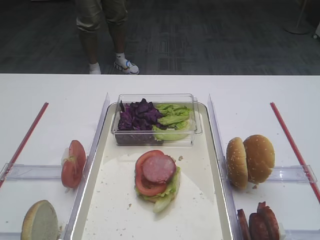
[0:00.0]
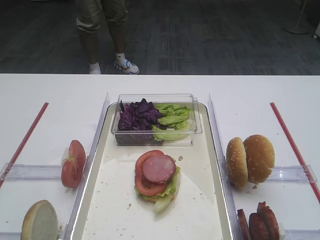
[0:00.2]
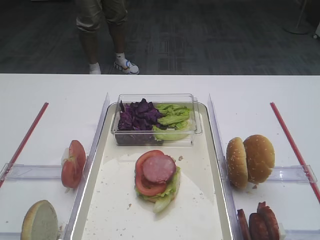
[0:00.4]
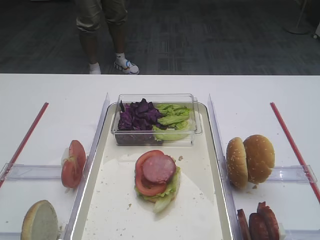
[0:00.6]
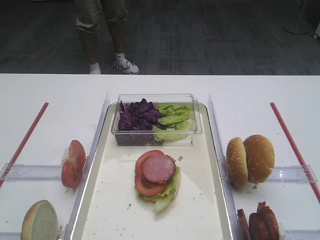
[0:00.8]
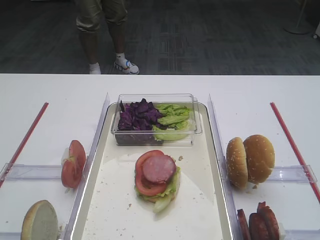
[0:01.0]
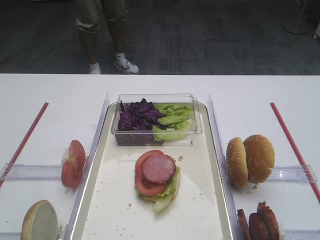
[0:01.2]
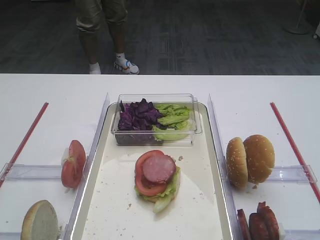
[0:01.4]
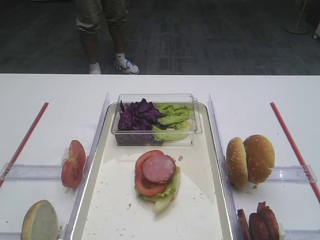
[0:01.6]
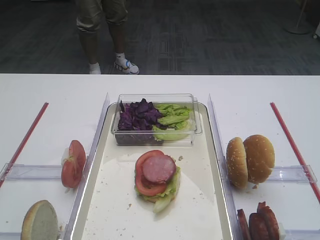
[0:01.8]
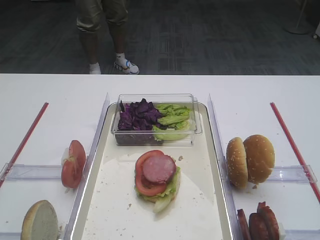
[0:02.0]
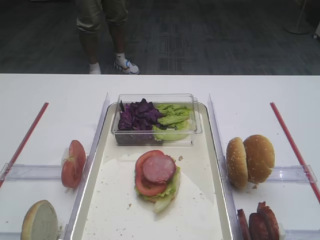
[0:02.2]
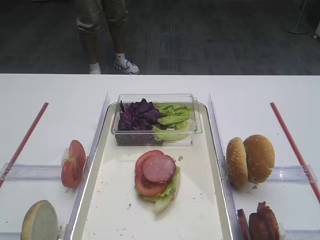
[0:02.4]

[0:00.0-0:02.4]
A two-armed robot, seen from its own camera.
0:00.0 to 0:02.4: Neither gripper changes place.

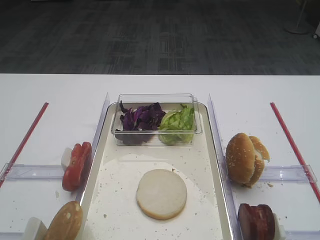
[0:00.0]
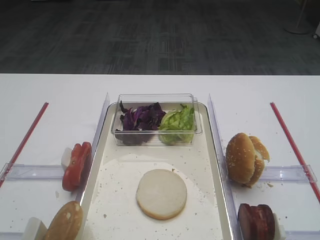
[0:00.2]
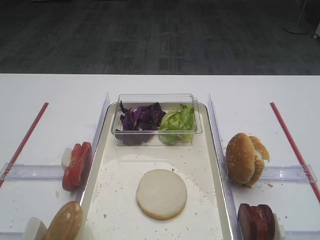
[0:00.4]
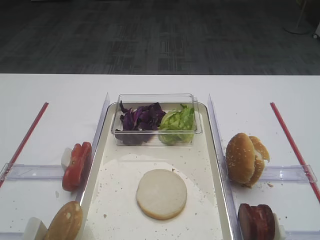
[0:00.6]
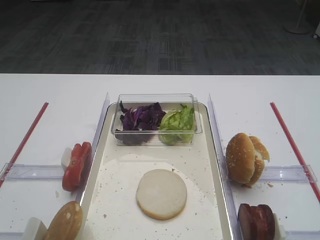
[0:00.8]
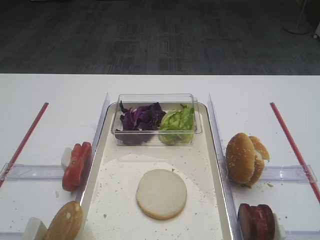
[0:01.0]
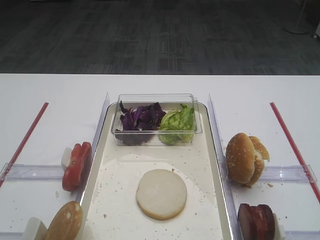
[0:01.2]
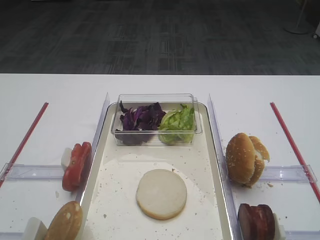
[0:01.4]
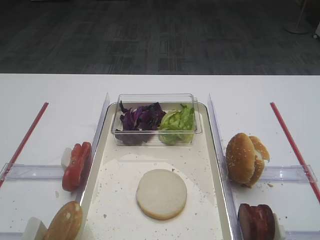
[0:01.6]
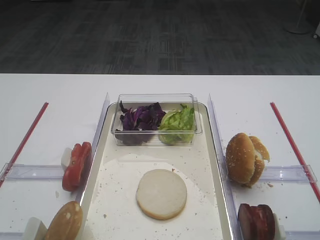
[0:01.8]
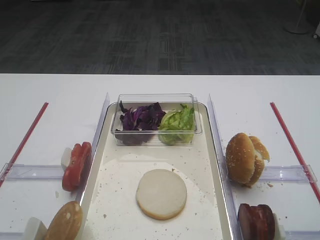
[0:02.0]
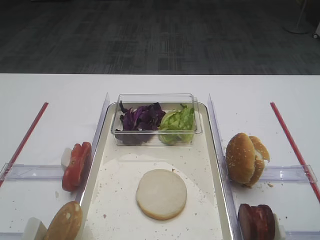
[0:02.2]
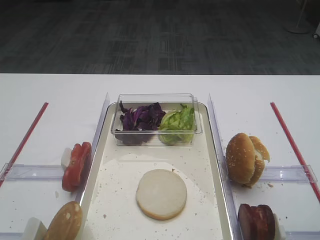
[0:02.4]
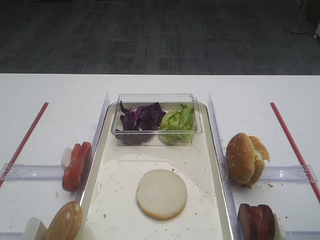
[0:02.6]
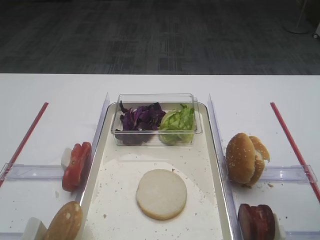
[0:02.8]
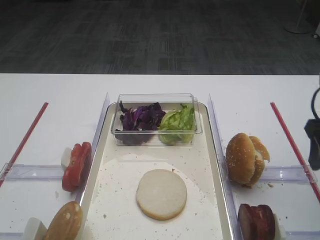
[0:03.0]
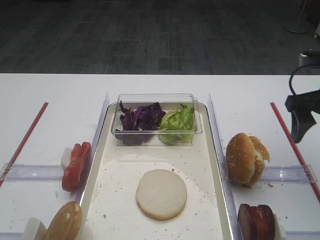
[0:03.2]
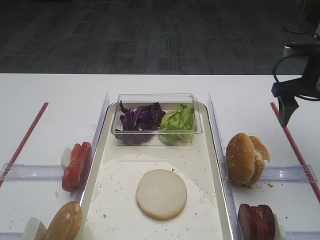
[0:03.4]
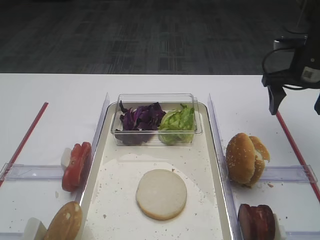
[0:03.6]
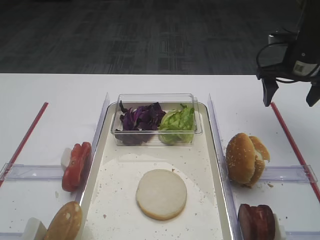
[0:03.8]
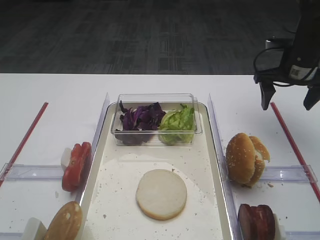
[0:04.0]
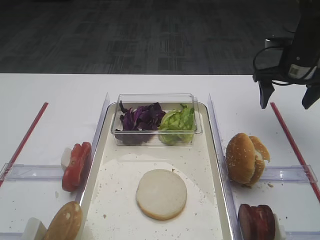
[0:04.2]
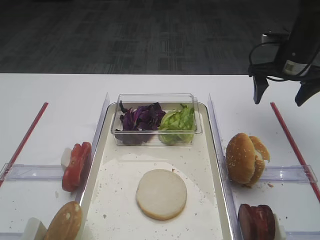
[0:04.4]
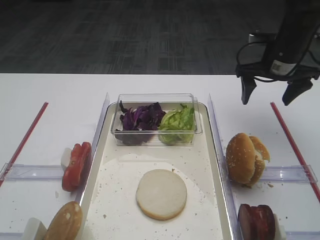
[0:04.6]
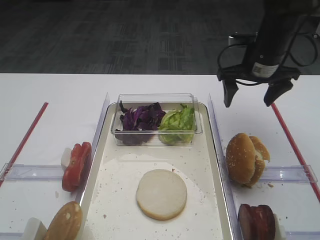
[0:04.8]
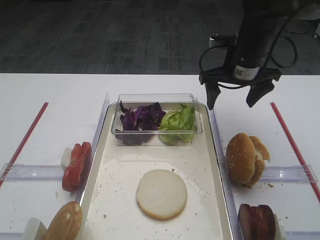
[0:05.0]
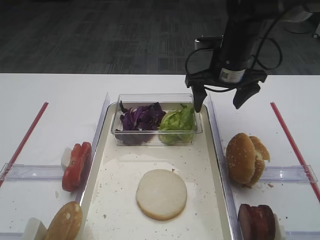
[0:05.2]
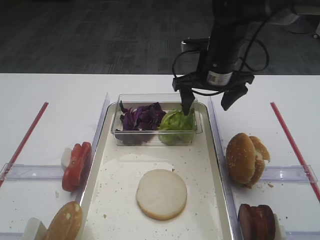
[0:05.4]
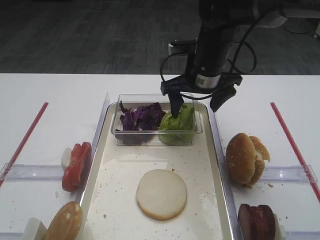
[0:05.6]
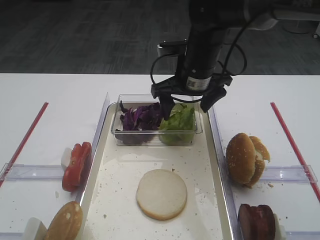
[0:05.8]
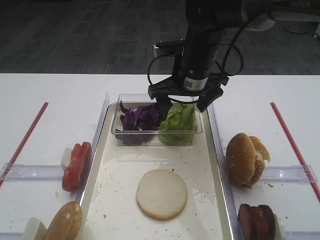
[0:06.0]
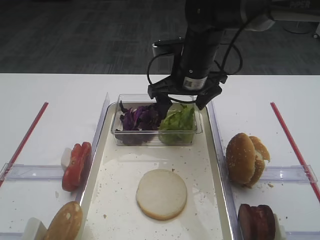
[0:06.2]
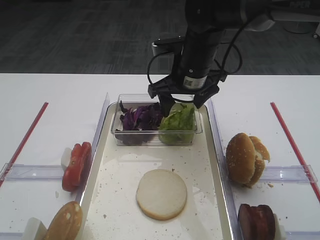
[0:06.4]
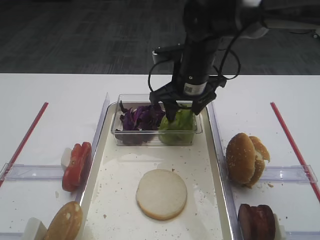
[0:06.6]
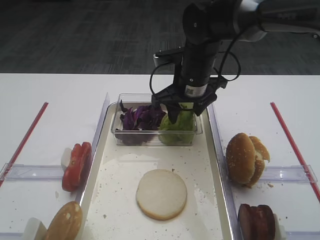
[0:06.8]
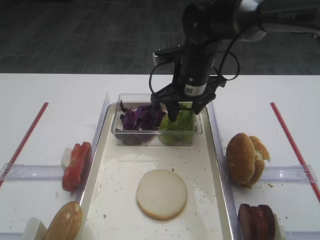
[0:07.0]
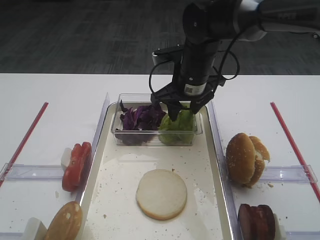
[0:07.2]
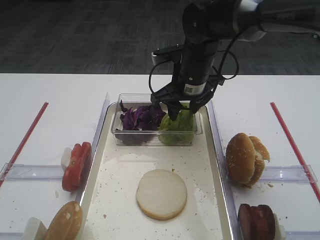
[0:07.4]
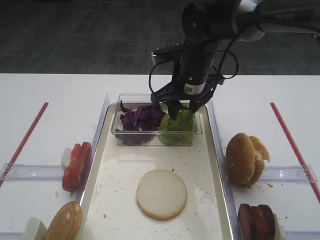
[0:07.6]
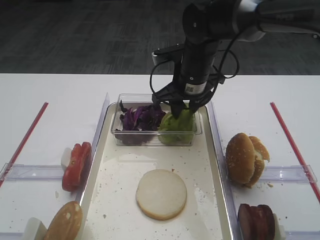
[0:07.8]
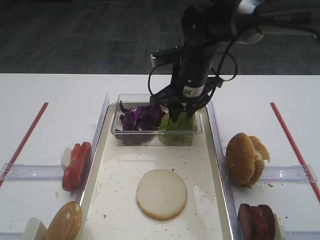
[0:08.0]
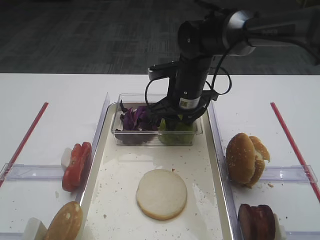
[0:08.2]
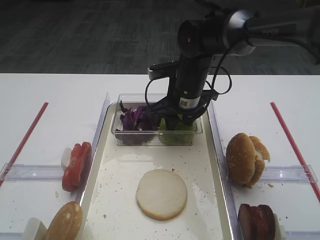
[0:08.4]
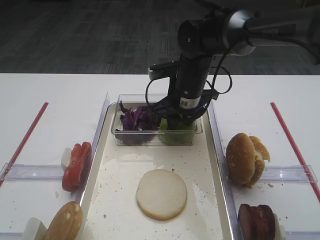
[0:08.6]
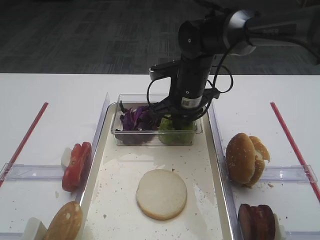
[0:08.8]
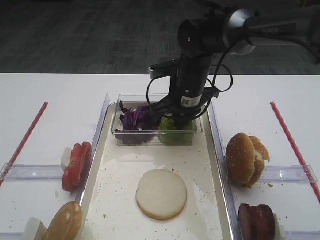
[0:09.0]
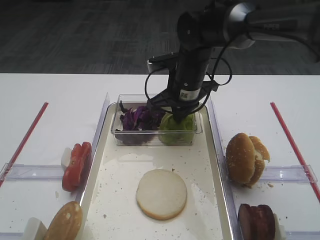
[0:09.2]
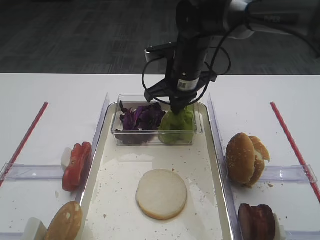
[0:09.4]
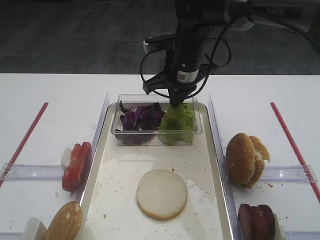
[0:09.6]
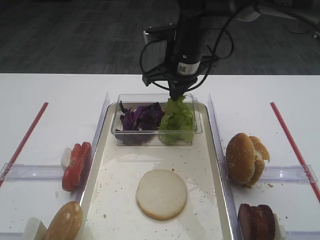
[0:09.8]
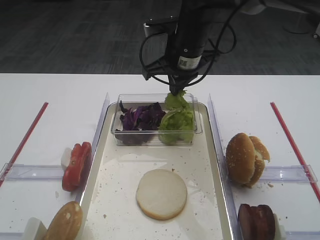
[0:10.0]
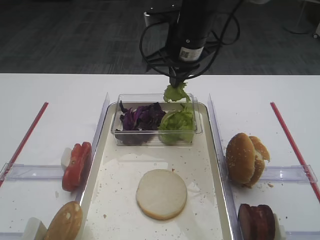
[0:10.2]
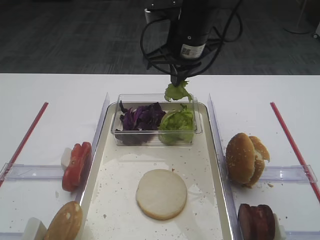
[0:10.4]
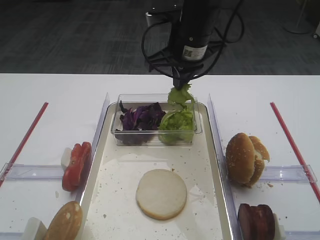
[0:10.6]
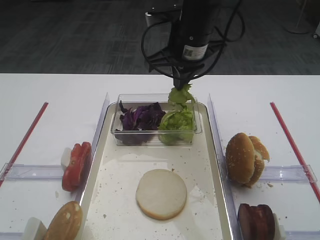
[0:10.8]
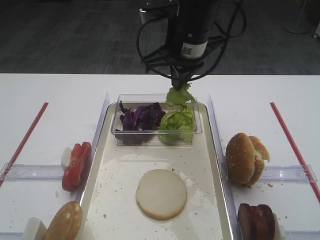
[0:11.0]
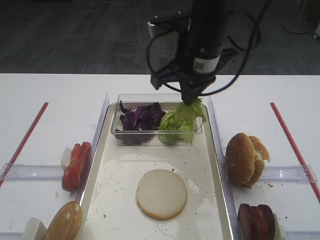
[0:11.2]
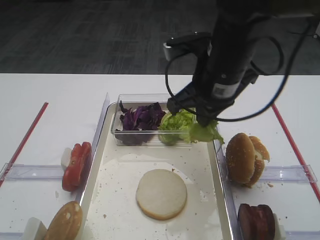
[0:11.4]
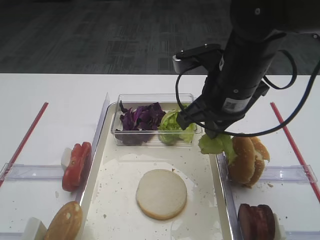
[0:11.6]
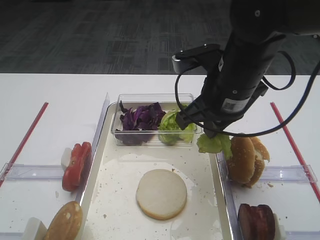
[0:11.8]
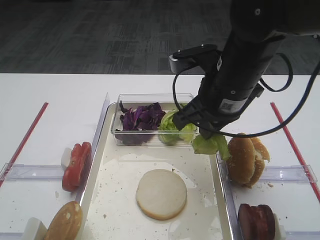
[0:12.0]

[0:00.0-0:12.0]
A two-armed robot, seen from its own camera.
Step, 0:00.0 to 0:09.8: Pick up the lettuce leaf with the right gripper.
0:01.6 to 0:03.0: The right gripper goes about 15 cm forward.
0:03.0 to 0:04.4: The right gripper travels forward by about 20 cm.
0:04.4 to 0:06.0: The right gripper travels to the left by about 20 cm.
0:06.0 to 0:07.6: The right gripper closes up.
0:07.6 to 0:09.0: The right gripper closes.
0:09.0 to 0:10.4: The right gripper travels upward by approximately 10 cm.
0:10.4 to 0:12.0: The right gripper shifts some 10 cm backward.

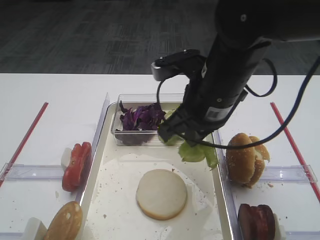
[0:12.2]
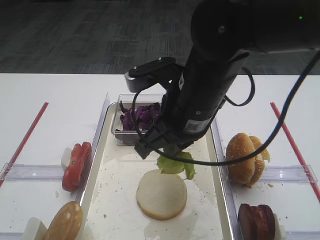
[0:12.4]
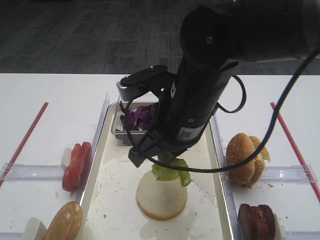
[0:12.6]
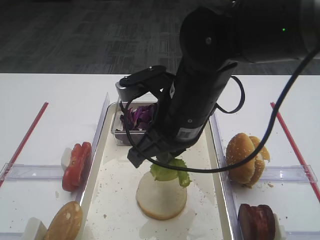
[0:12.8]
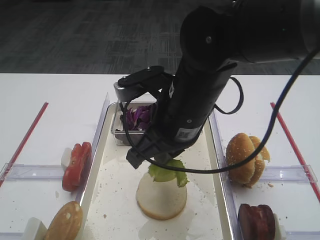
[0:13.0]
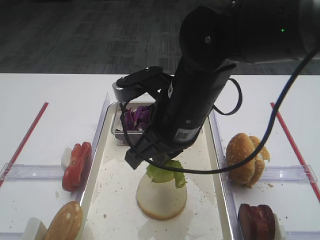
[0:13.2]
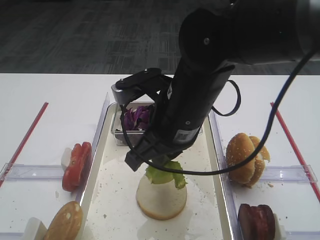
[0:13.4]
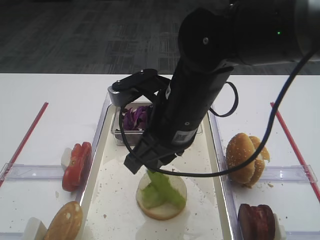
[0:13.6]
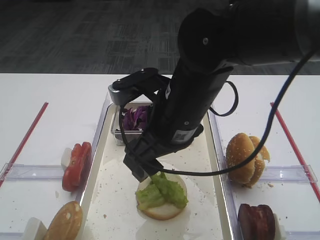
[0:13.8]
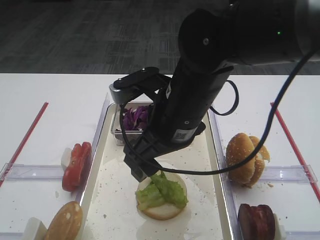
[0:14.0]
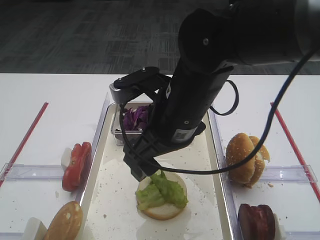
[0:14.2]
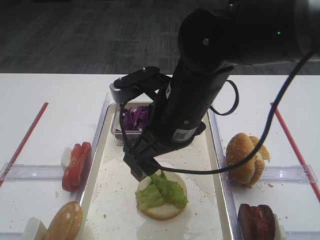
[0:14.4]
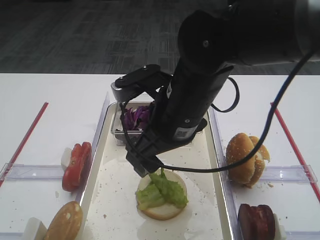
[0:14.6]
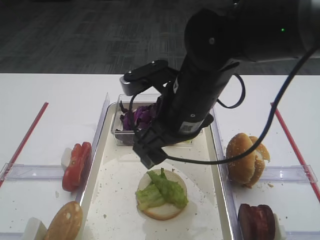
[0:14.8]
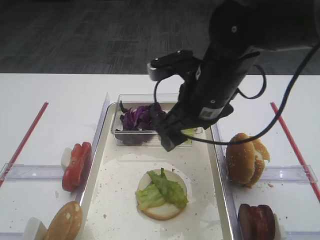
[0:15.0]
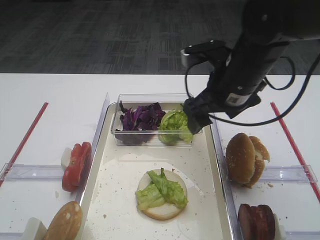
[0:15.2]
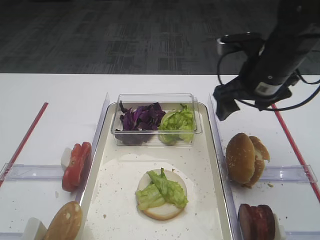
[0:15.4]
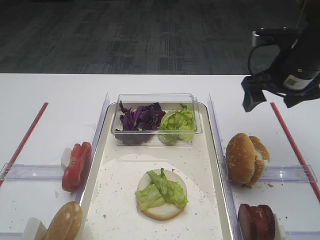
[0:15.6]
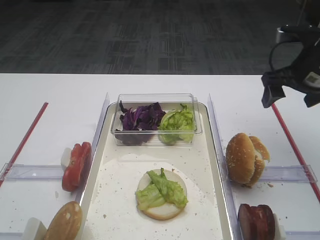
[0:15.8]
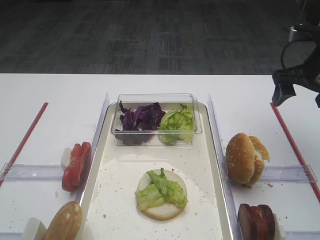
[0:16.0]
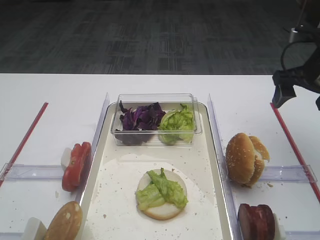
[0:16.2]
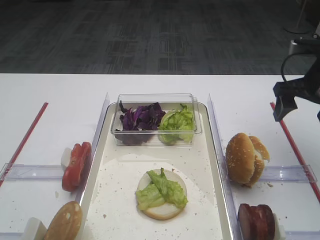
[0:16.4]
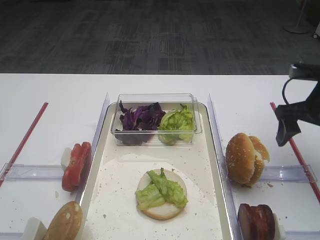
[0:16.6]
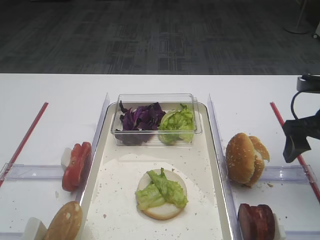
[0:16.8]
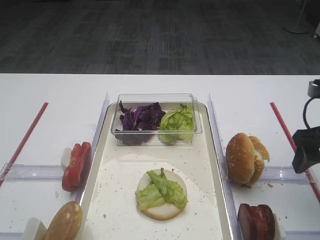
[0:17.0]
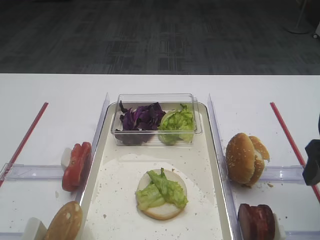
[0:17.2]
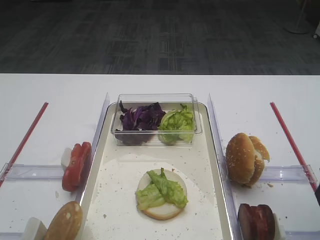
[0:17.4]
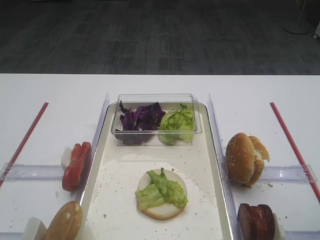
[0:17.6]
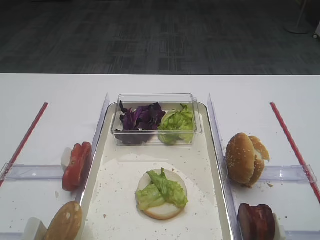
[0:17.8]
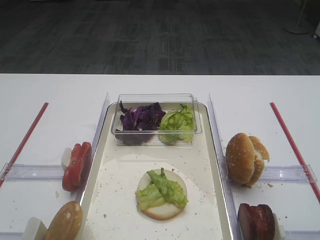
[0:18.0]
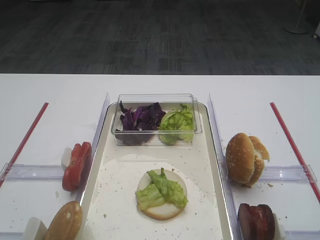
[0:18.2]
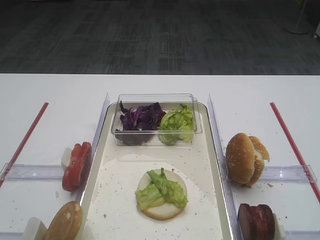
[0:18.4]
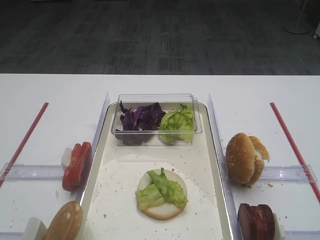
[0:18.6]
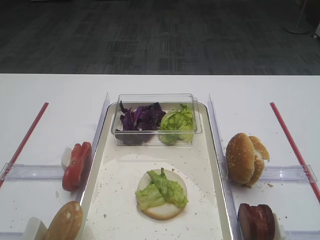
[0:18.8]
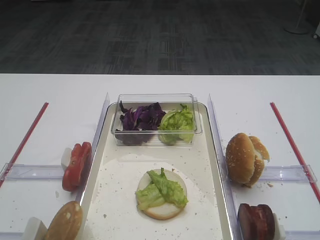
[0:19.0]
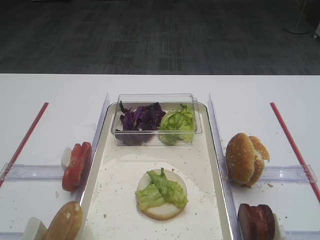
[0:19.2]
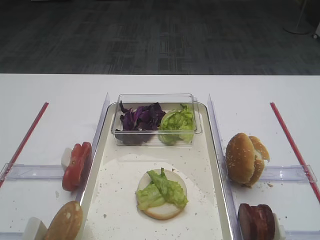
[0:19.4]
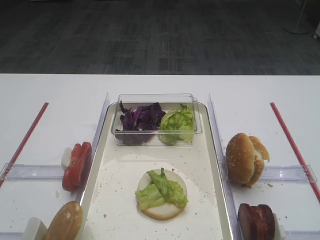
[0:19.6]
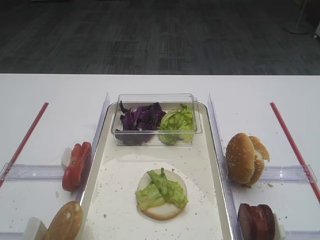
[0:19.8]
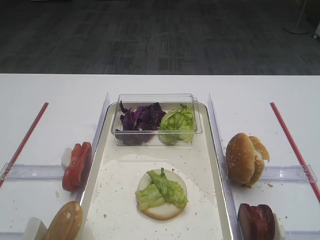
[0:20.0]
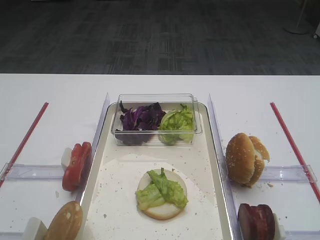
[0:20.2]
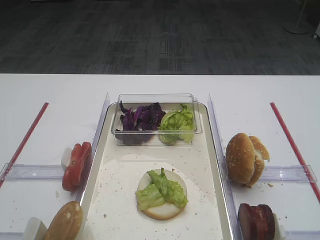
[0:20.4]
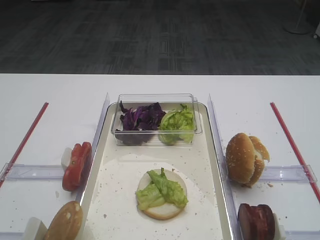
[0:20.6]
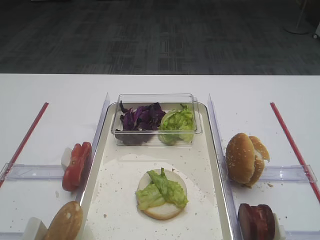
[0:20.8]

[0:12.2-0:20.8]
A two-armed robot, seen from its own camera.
Step, 0:12.2 to 0:14.6: Place the lettuce leaf on the bread slice with the right gripper.
0:12.2 to 0:13.6: The right gripper ends up roughly 5 cm from where it was.
0:13.6 to 0:15.0: The right gripper shifts by roughly 5 cm, and opens up.
0:15.0 to 0:16.6: The right gripper shifts some 20 cm to the right.
0:16.6 to 0:18.0: The right gripper moves backward, roughly 25 cm.
0:19.4 to 0:20.8: The two grippers keep their place.
